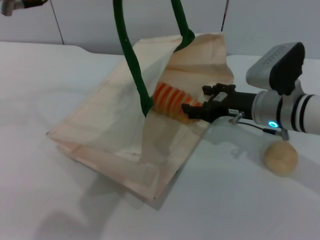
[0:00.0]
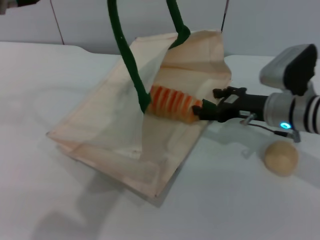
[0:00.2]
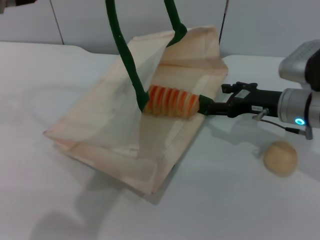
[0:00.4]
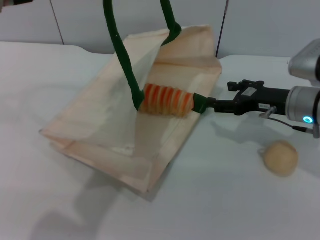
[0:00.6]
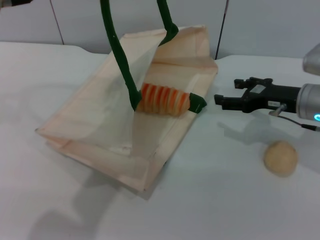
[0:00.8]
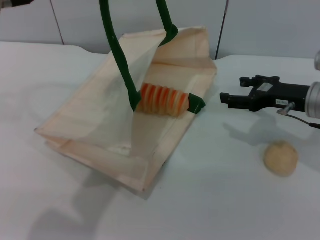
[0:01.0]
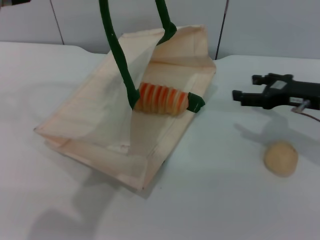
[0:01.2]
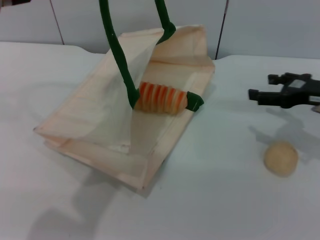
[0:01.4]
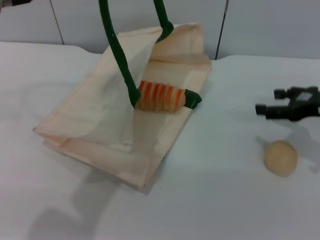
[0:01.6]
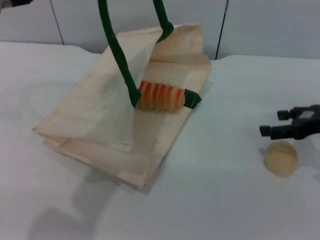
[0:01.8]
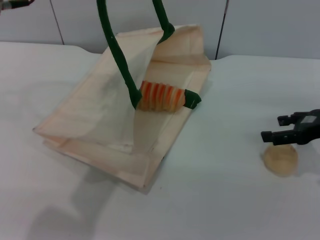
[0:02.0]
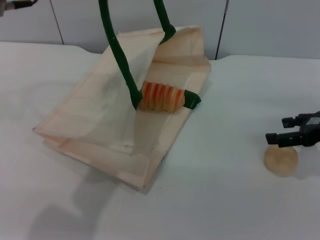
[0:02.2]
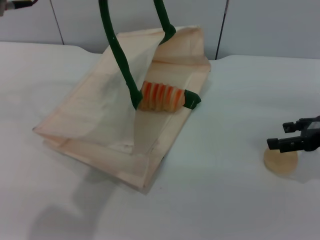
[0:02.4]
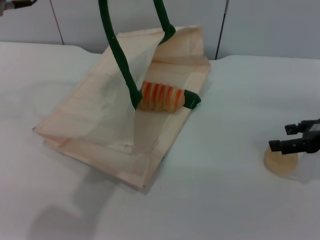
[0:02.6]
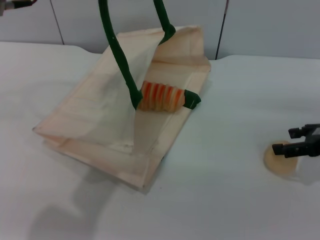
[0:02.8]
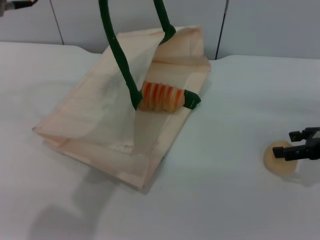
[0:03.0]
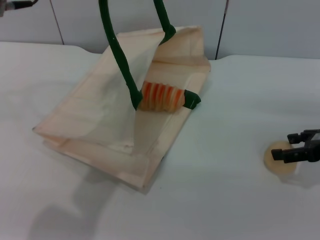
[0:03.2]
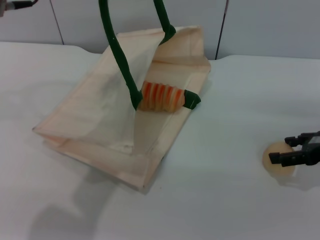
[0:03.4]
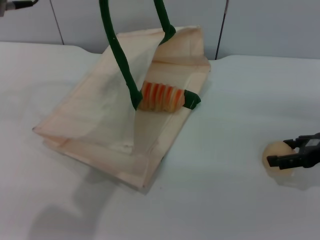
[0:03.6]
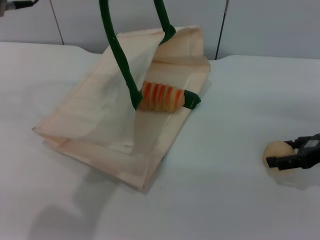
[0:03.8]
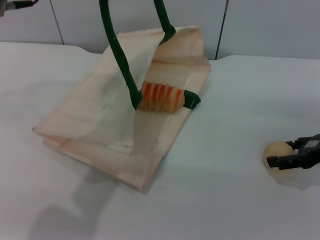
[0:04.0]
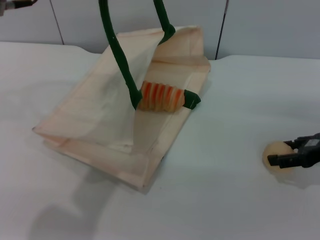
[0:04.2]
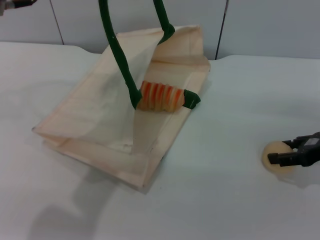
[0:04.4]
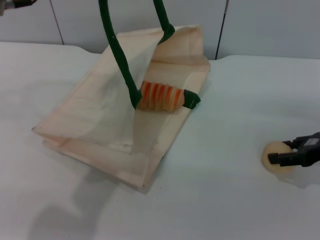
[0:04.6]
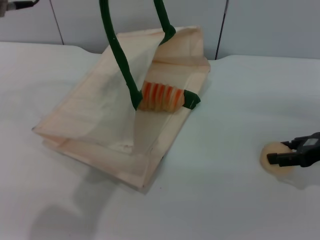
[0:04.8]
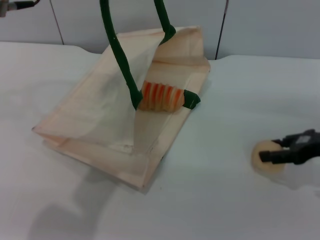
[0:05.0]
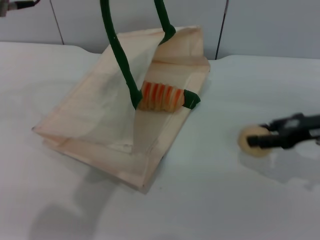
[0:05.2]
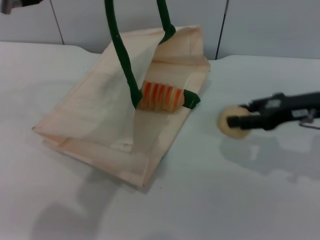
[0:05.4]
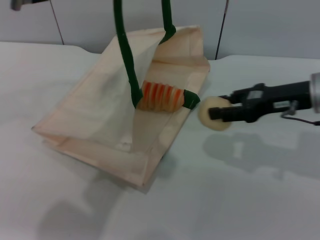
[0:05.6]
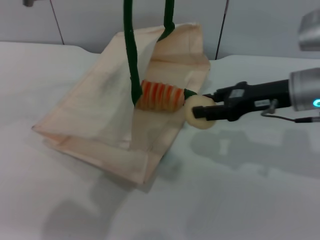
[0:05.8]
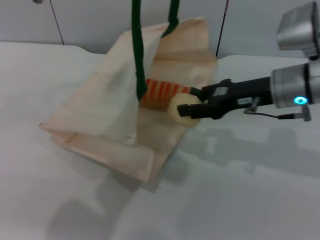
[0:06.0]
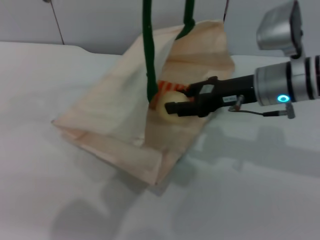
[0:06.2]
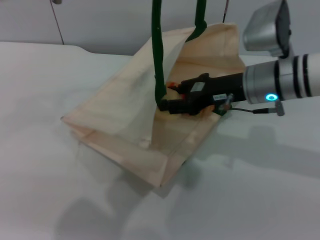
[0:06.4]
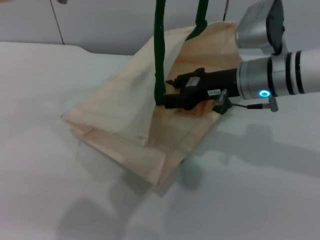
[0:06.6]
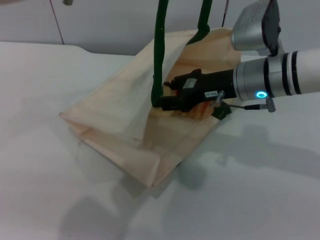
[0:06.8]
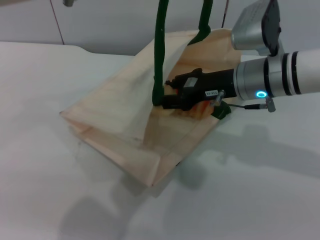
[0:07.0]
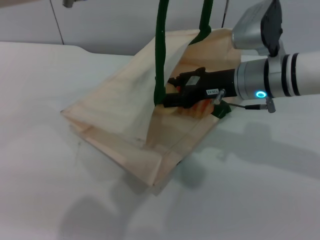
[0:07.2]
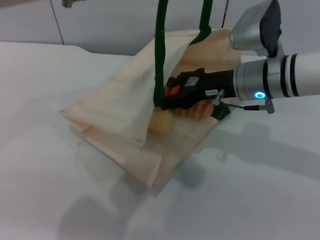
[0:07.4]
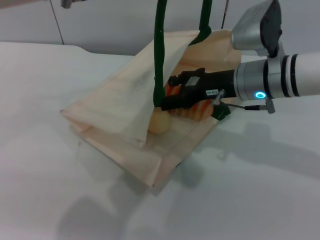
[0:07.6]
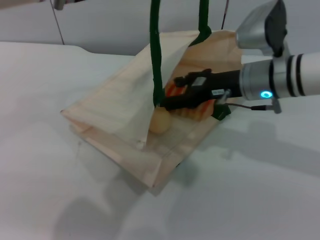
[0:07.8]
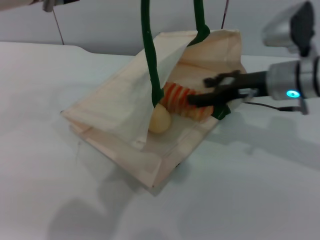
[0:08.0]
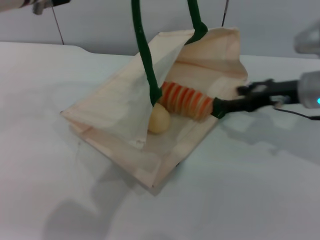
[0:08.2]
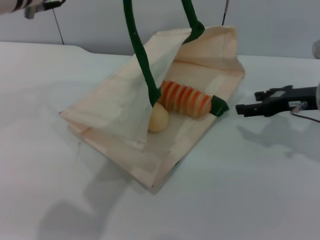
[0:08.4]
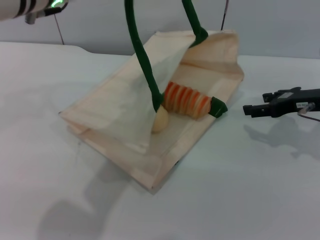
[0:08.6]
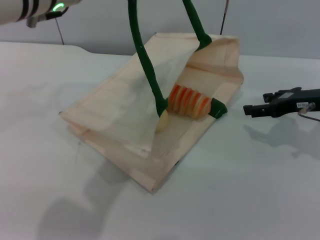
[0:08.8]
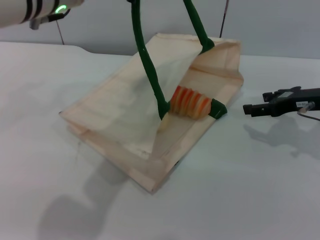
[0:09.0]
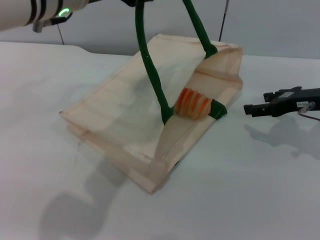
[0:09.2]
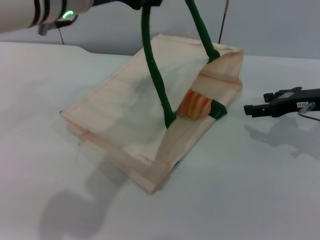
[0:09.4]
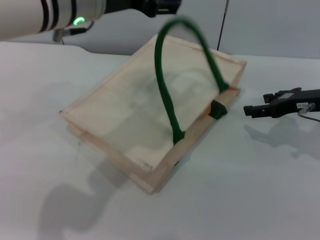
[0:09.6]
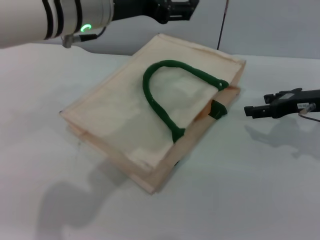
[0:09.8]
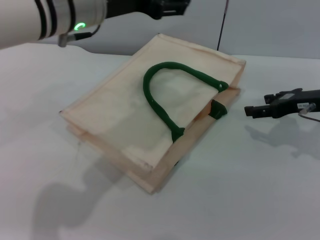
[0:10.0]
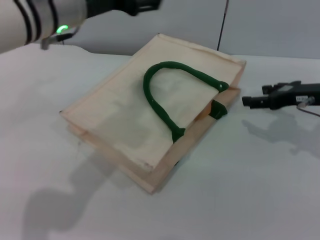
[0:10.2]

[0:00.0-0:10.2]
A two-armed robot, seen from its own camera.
Task of the whole recording: pick up the bread and egg yolk pastry from the table and place it in the white handbag.
Step, 0:01.0 to 0:05.2: Pick up the egg yolk pastry with the right gripper.
Step, 0:05.4 to 0:08.4: Place the egg yolk pastry into the woven bag with the right gripper.
Step, 0:08.6 to 0:10.2: Lower the woven bag with the left gripper to close it.
0:00.0 to 0:01.4: The right gripper heads to the right, covering some 10 cm.
0:01.4 to 0:03.0: The right gripper ends up some 5 cm from where it was.
0:03.0 to 0:04.4: The grippers stay close to where they were, moving slightly.
0:04.4 to 0:05.8: The right gripper is displaced to the left by some 10 cm, and closes.
0:05.8 to 0:07.2: The right gripper heads to the left, covering approximately 5 cm.
0:07.2 to 0:08.8: The left gripper ends up some 5 cm from where it was; the right gripper moves to the right, about 15 cm, and opens.
0:08.8 to 0:10.2: The left gripper moves approximately 5 cm, and opens its fingers.

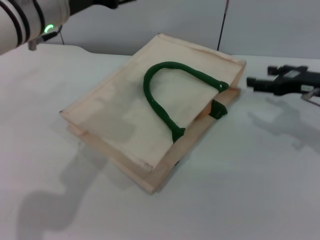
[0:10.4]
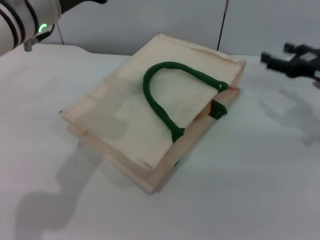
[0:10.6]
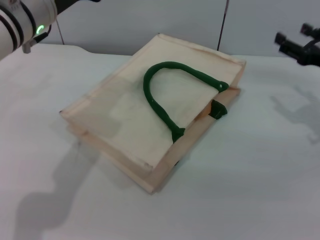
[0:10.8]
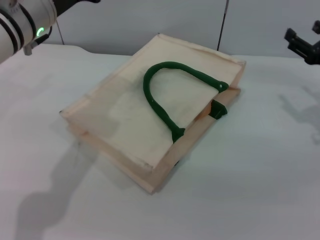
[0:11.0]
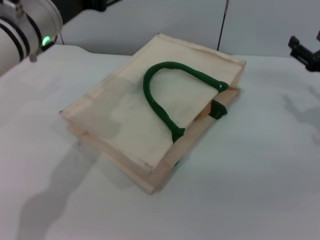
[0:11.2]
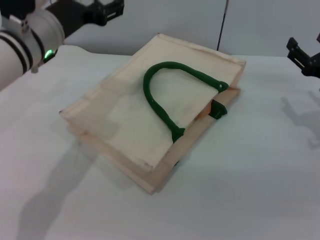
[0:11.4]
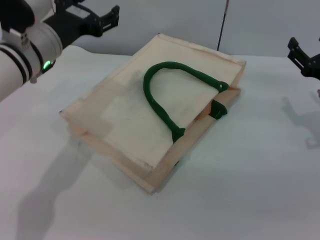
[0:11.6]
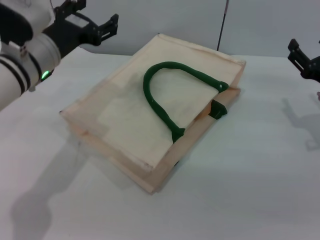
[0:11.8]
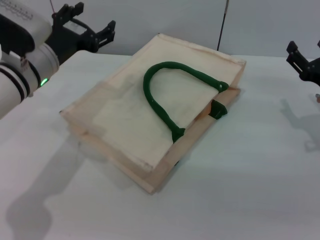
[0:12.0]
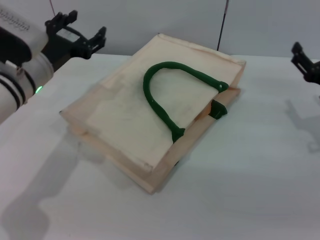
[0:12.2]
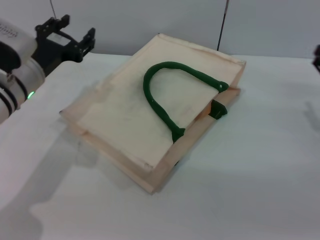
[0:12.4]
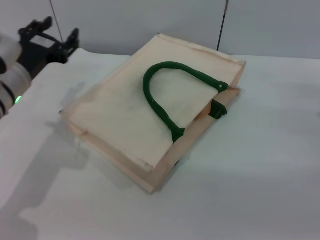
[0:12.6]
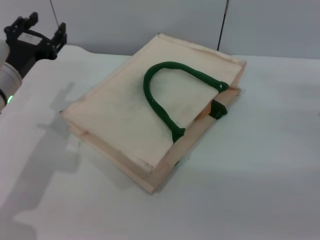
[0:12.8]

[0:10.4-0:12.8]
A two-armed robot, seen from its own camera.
Task of the whole recording: pick up the bread and egg yolk pastry from the table and place it in the white handbag.
0:10.4 to 0:11.6: The left gripper is displaced downward by some 5 cm, while the right gripper ends up approximately 5 cm from where it was.
0:11.6 to 0:12.8: The left gripper heads to the left, covering roughly 5 cm.
